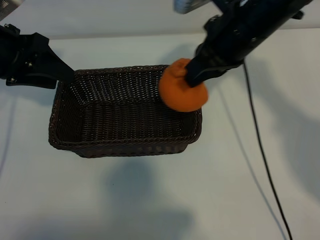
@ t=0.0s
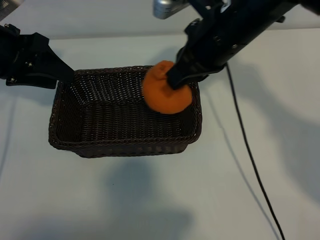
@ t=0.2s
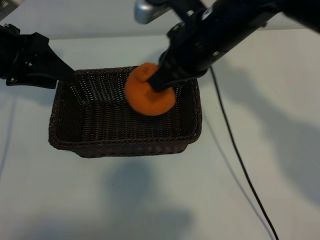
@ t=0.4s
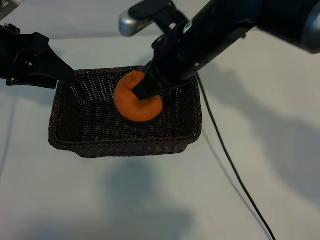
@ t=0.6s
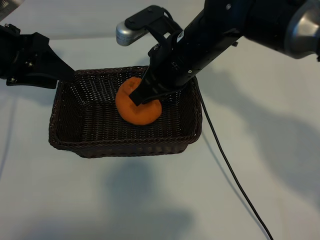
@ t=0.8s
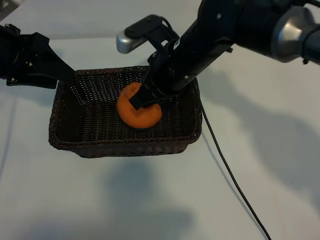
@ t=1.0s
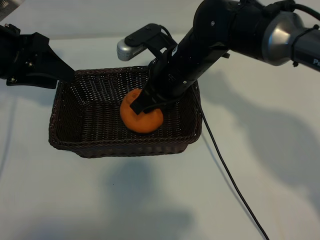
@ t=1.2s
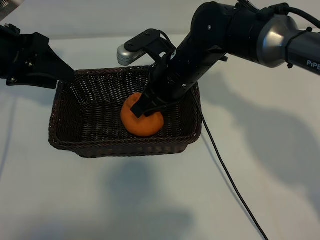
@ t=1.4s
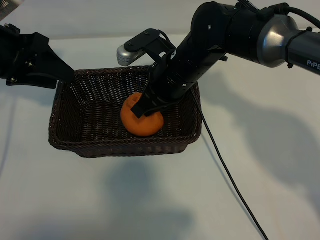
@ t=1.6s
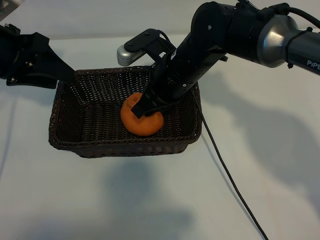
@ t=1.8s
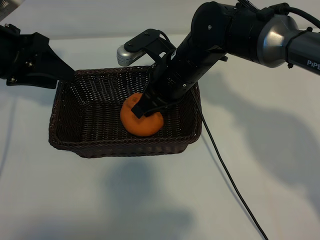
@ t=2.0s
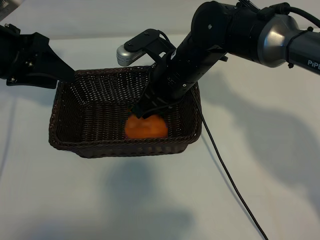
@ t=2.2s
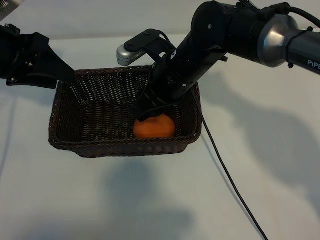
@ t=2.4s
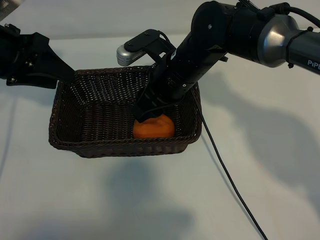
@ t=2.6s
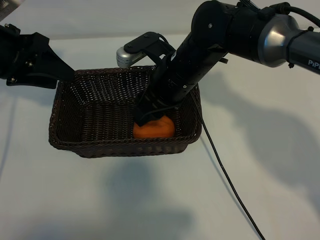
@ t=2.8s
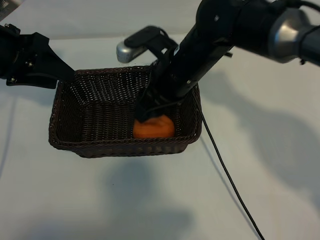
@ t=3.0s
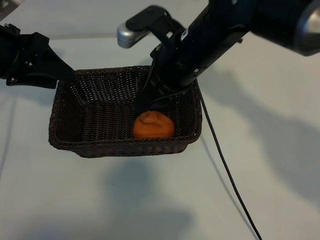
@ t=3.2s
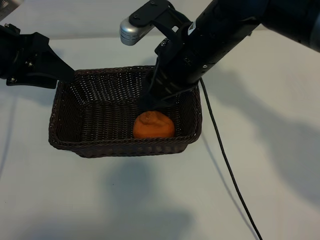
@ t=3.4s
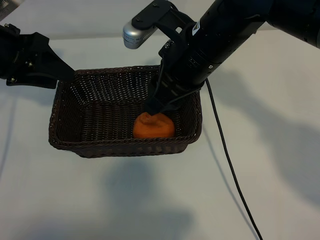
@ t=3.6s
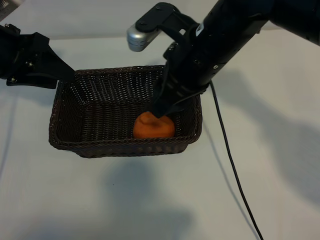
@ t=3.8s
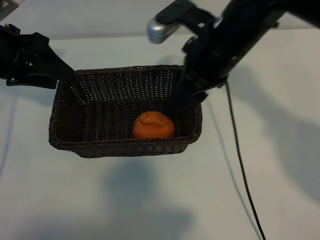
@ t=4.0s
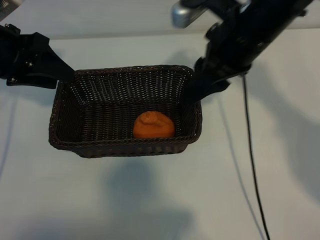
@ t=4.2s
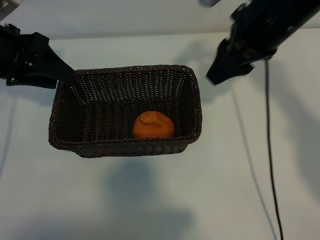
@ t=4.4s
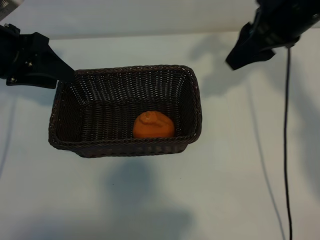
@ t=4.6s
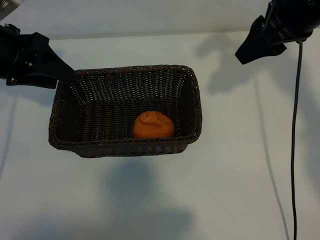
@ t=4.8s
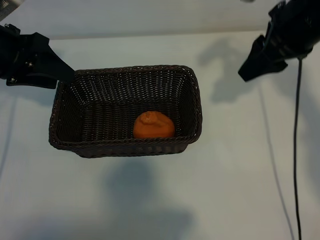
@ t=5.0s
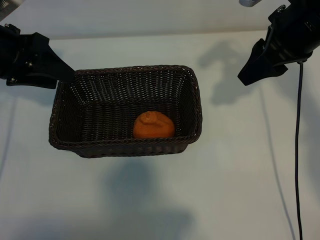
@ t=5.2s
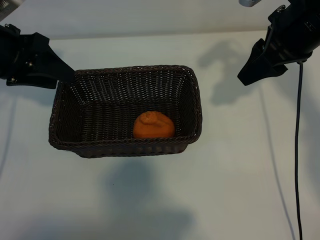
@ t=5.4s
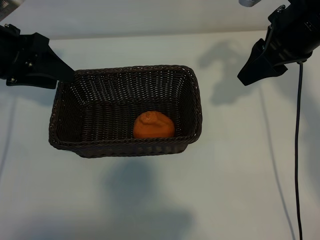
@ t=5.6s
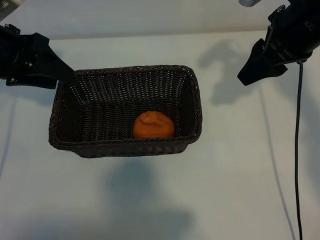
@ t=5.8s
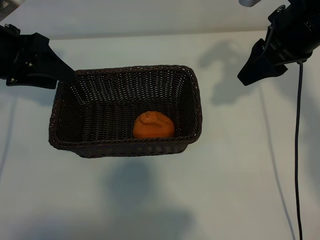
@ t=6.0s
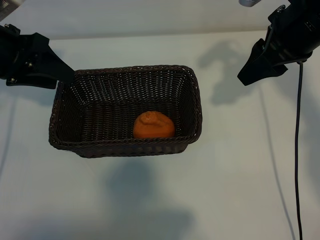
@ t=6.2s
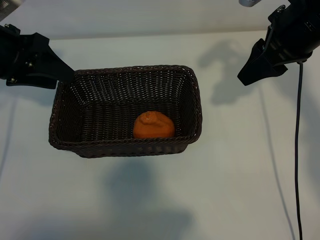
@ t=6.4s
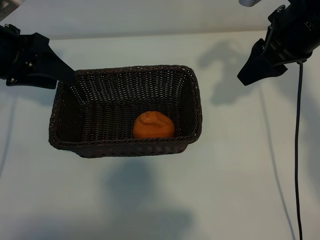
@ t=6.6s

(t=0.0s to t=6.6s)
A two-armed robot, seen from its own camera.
Task of the whole recording: pick up the orange and put it into the basket.
Step, t=0.0s - t=2.2s: Place the orange in the basket with right gripper.
